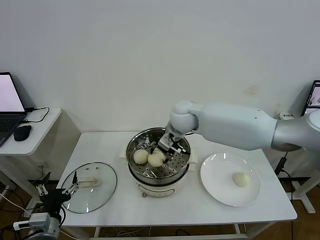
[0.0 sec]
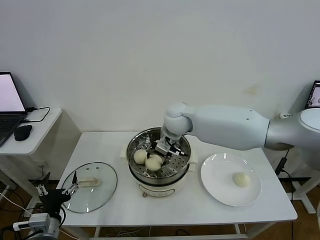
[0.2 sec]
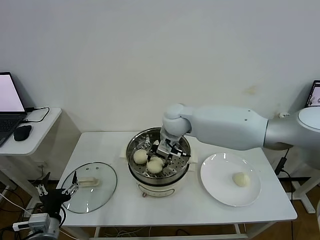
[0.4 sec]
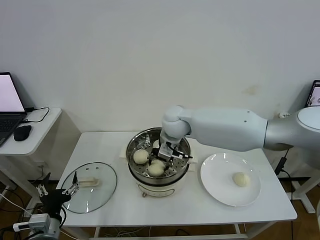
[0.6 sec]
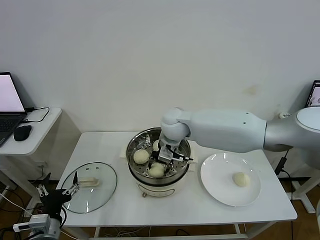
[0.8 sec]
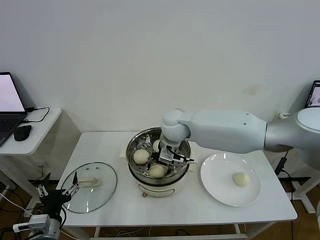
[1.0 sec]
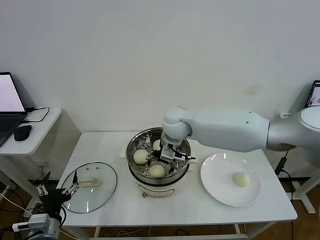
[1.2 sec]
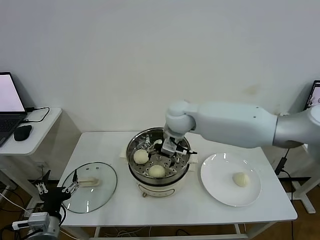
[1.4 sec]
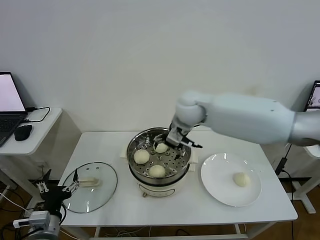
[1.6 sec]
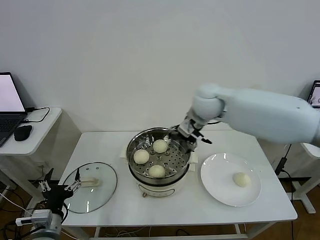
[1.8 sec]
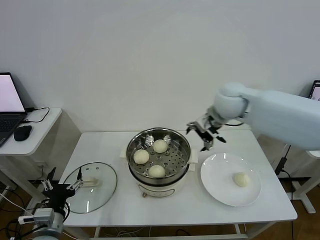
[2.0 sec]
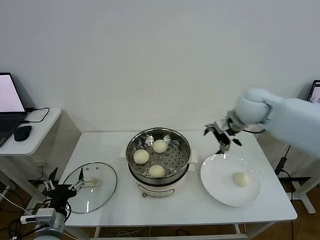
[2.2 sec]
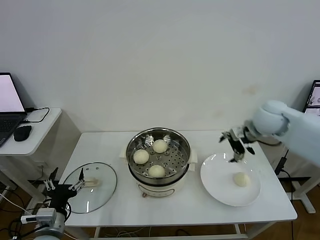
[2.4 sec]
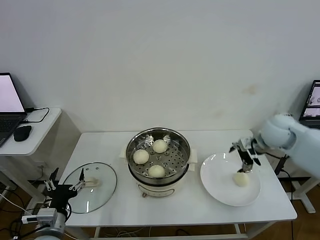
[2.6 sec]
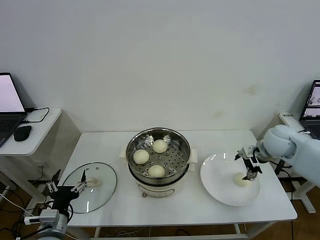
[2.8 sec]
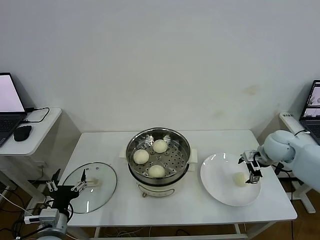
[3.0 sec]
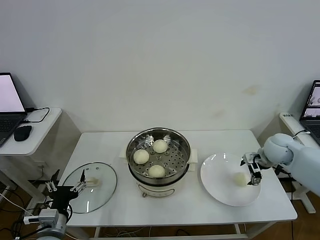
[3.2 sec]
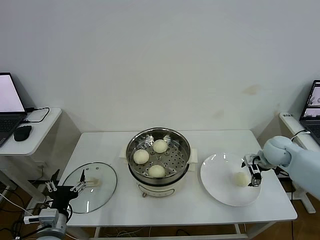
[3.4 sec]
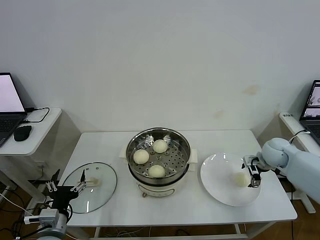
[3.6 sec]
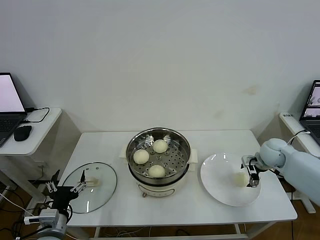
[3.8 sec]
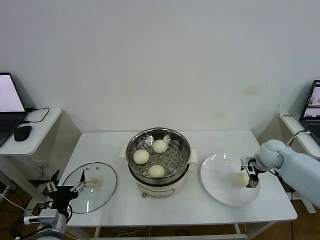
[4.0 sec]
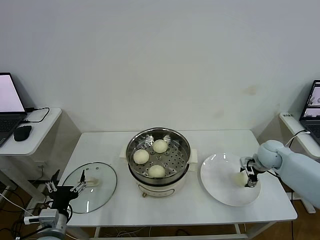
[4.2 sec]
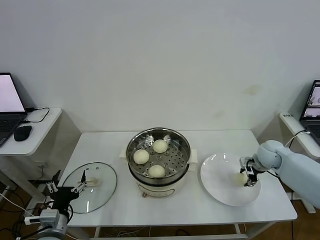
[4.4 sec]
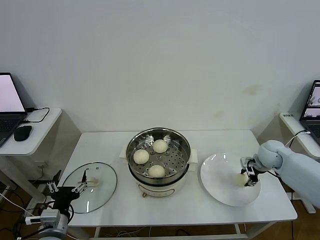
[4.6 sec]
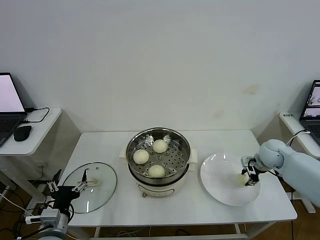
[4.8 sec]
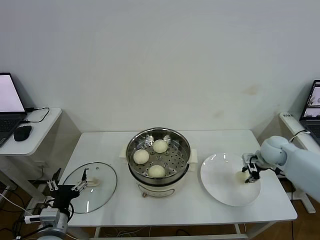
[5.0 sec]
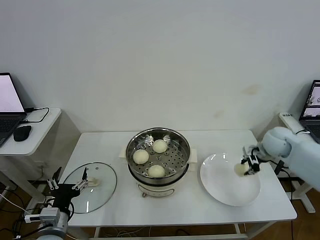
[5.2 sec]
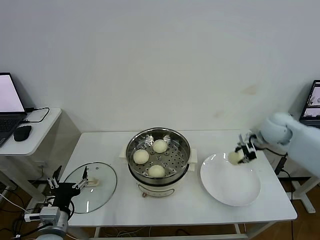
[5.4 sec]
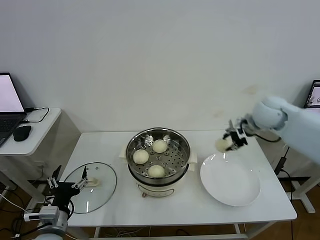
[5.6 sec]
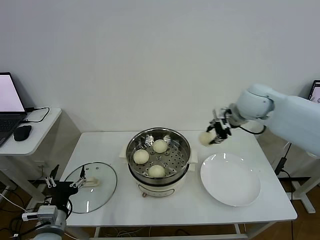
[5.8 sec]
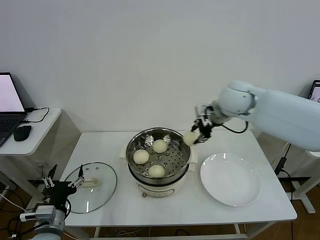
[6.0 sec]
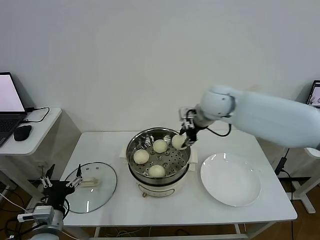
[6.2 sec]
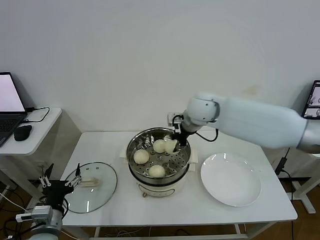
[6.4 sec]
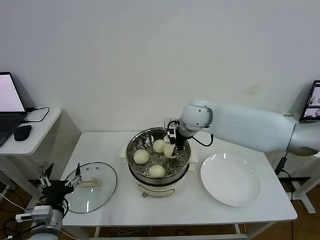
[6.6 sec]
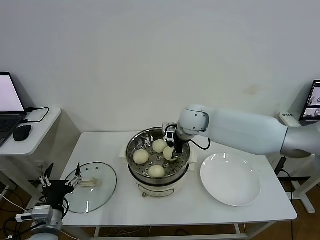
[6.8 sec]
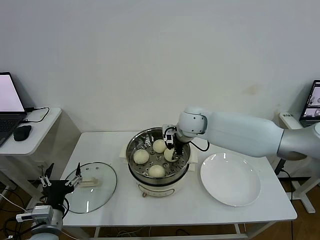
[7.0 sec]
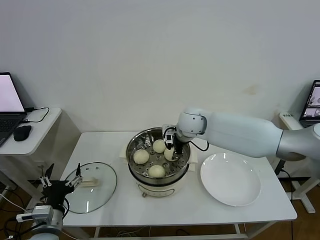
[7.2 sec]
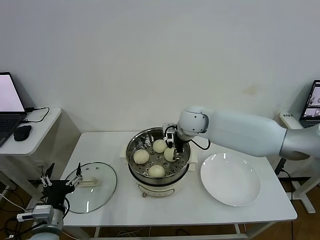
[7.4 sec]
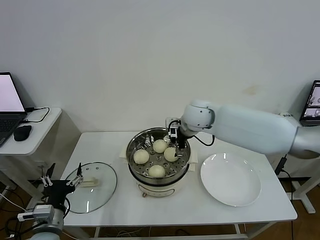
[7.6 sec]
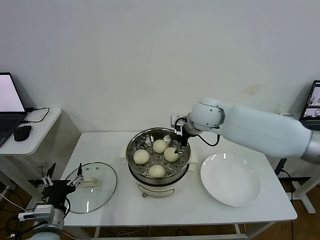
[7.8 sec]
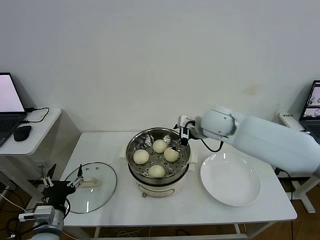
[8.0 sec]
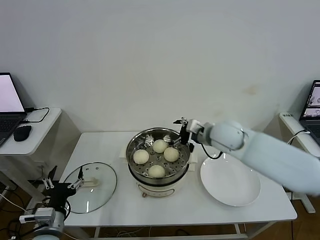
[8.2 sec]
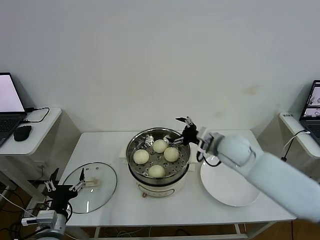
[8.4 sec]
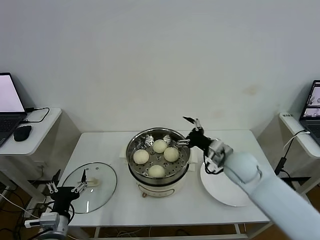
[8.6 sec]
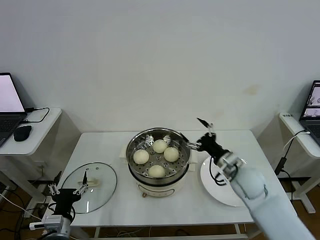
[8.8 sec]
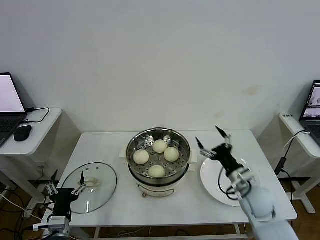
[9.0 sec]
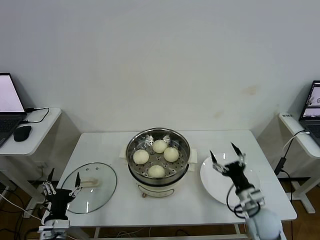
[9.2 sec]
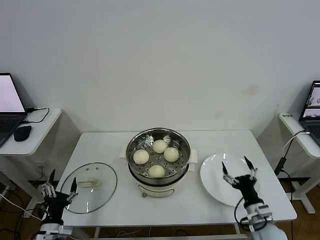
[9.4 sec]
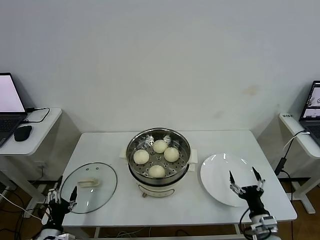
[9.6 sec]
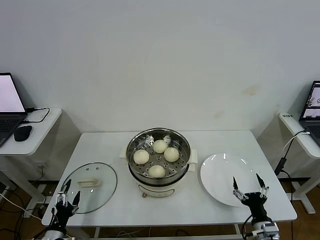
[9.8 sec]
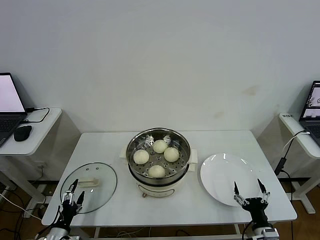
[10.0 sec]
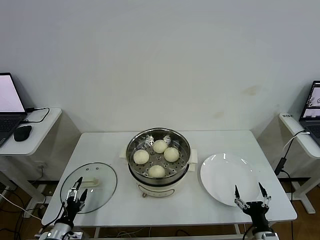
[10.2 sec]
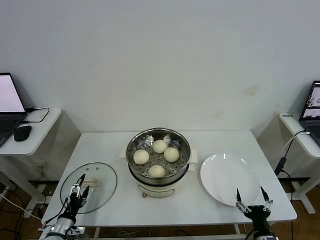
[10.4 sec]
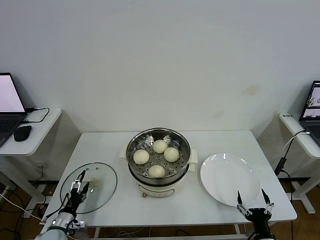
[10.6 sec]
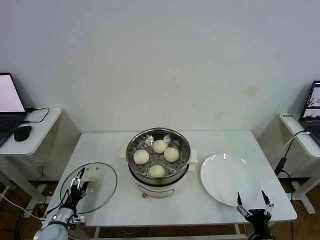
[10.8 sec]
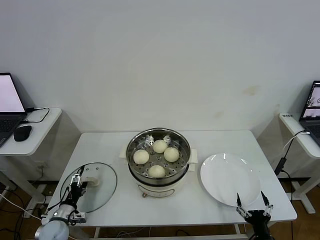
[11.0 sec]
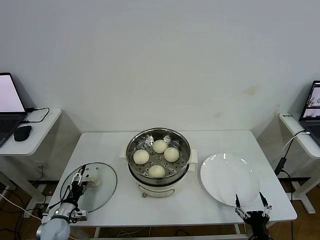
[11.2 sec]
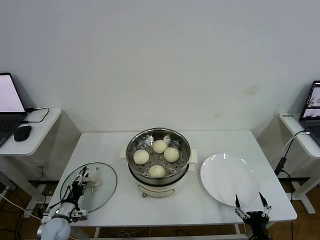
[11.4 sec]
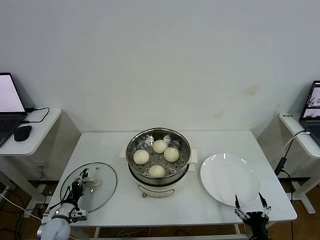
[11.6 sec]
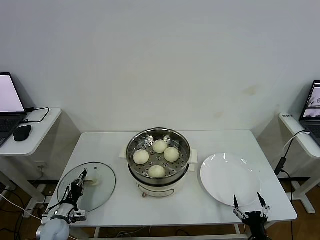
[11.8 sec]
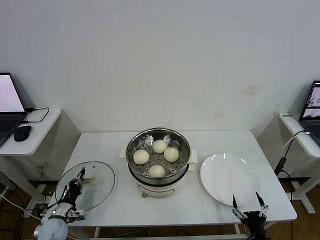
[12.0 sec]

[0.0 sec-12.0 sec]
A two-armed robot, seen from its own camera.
Step, 1.4 sec to 4.4 sec: Grasp the baozi in the plate with right gripper.
Step, 4.6 sec to 7.8 sec: Place the baozi on the steamer with right gripper.
0.0 sec to 1.6 sec: The right gripper goes approximately 5 cm upward, and opens its fingers.
1.6 sec to 3.0 sec: The right gripper is displaced to the right and downward by roughly 30 cm.
3.0 sec to 4.4 sec: The right gripper travels downward by some 5 cm, and closes its fingers.
4.4 sec to 6.0 sec: The right gripper shifts about 30 cm upward and to the left.
6.0 sec to 7.6 sec: The right gripper heads to the left and downward, covering about 10 cm, and opens.
7.6 sec to 9.0 sec: The left gripper travels downward by approximately 5 cm; the right gripper travels backward, downward and to the right by roughly 35 cm.
9.0 sec to 10.4 sec: The right gripper is displaced backward and downward by some 20 cm, while the left gripper goes roughly 15 cm downward and to the left.
10.4 sec to 12.0 sec: The left gripper goes roughly 5 cm forward, and closes its fingers.

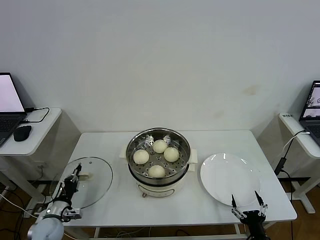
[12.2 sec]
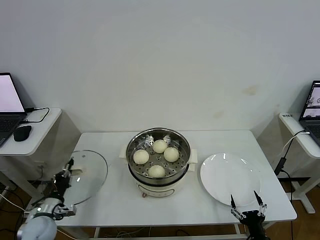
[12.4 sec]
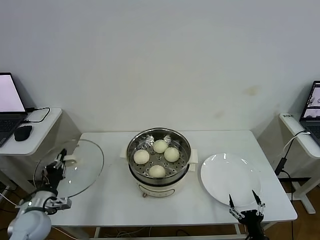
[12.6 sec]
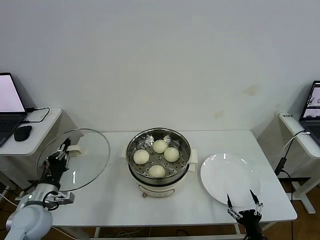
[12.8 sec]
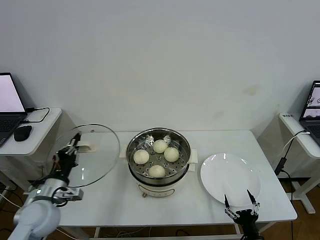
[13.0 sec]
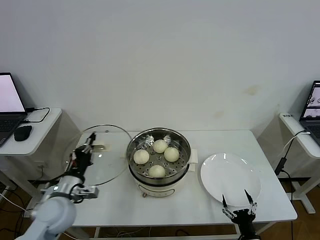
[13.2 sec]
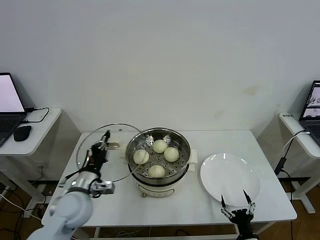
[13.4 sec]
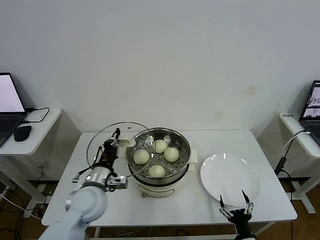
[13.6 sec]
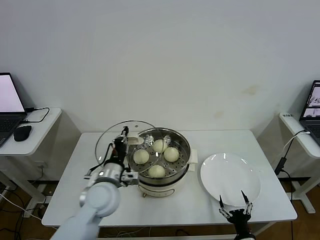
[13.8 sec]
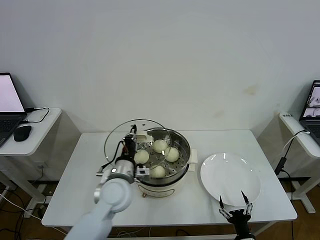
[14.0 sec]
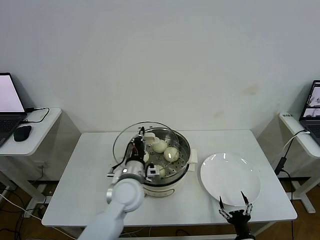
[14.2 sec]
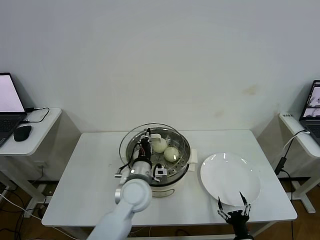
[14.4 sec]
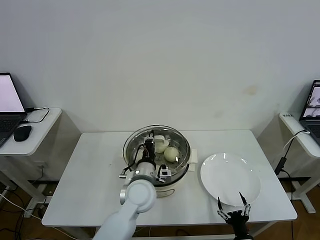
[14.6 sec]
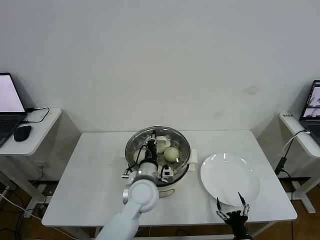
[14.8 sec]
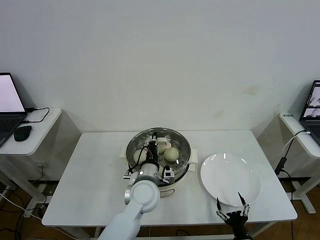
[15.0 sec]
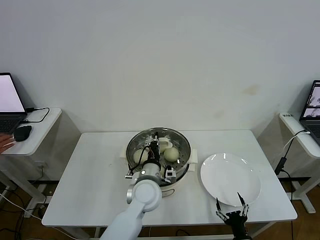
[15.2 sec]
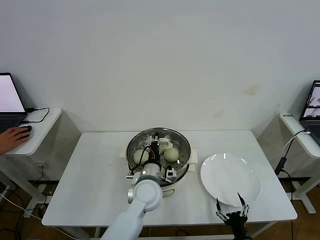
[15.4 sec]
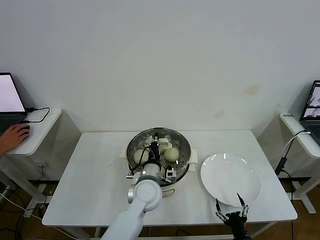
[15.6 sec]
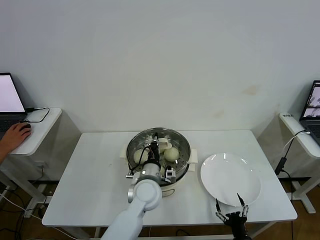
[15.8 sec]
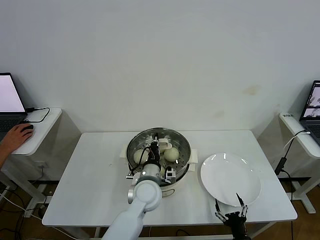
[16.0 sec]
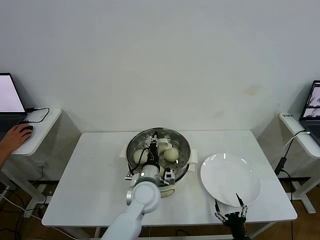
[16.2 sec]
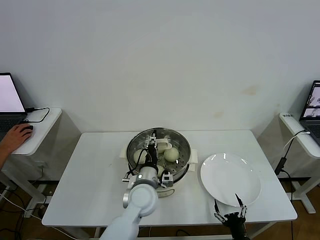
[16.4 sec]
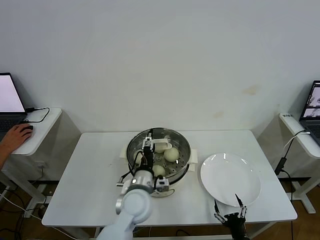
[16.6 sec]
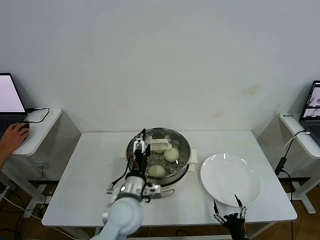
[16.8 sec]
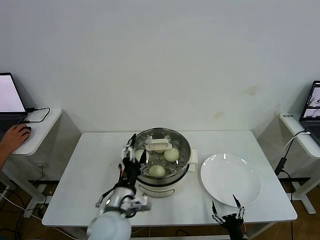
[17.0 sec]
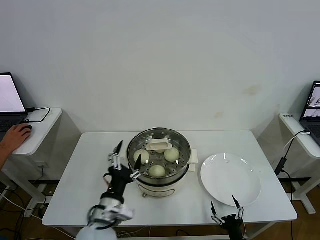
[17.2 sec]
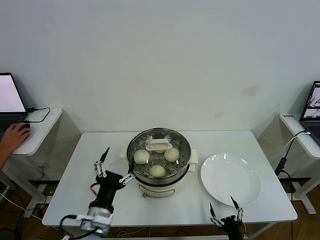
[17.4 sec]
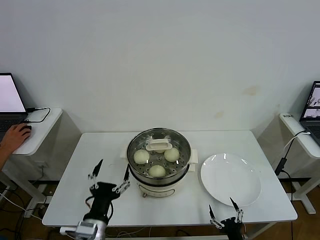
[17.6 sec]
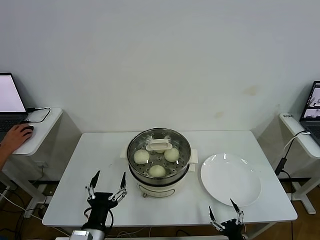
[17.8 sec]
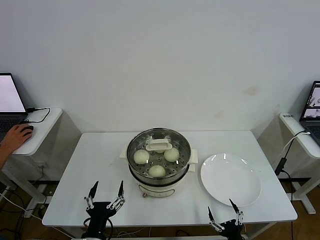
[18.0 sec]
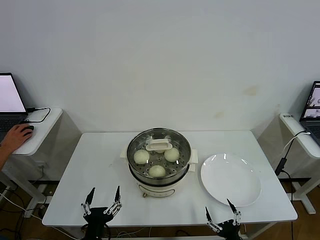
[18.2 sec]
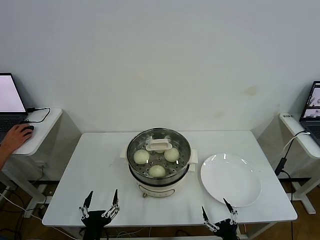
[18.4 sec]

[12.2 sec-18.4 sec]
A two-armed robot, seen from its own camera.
Step, 12.2 sec to 17.0 sec: Place the pot lid on the steamer with left gripper.
12.2 sec to 13.8 sec: The left gripper is displaced to the right and upward by approximately 30 cm.
13.8 sec to 15.4 sec: The left gripper moves to the right, approximately 15 cm.
15.4 sec to 16.8 sec: The left gripper travels backward by approximately 5 cm, and opens its fingers.
16.8 sec to 18.4 sec: The left gripper goes about 20 cm backward and to the left. Meanwhile the right gripper shifts by approximately 5 cm.
